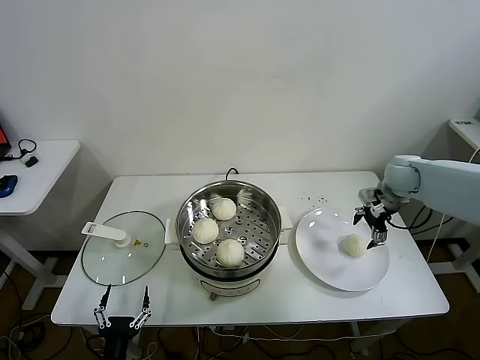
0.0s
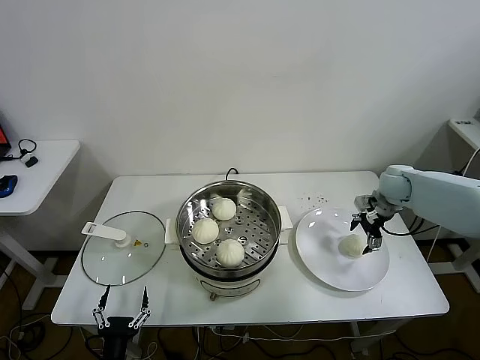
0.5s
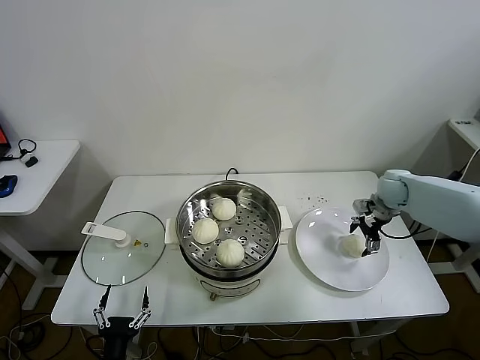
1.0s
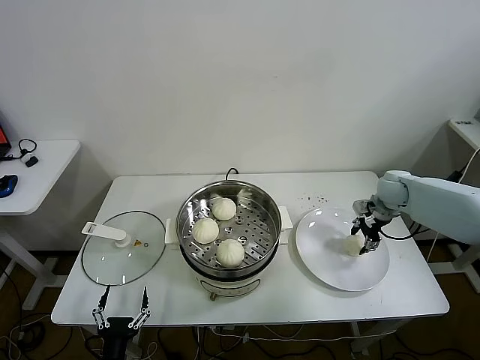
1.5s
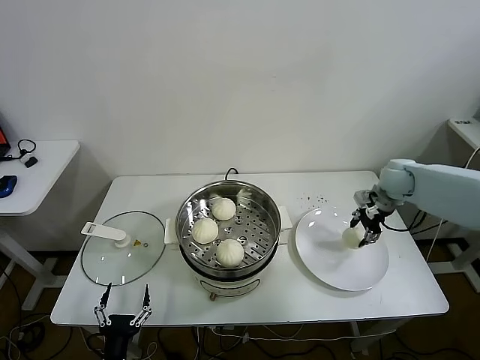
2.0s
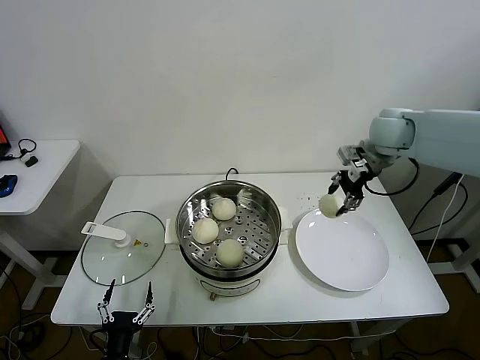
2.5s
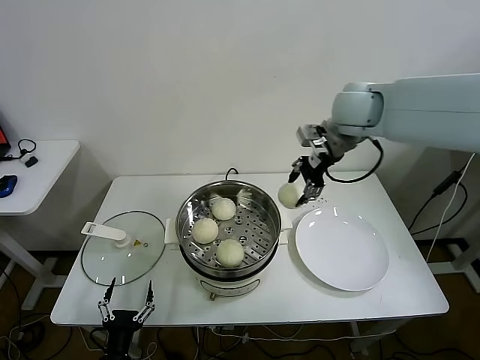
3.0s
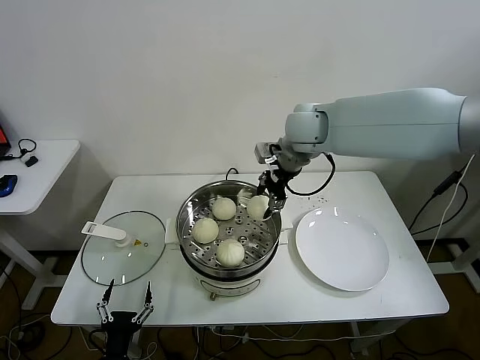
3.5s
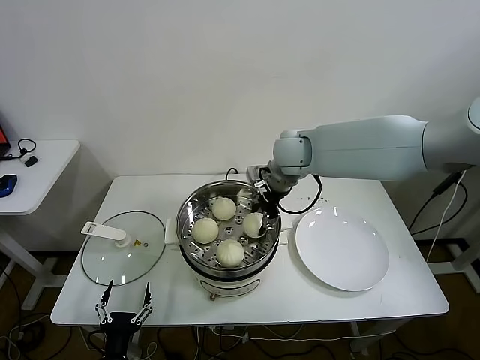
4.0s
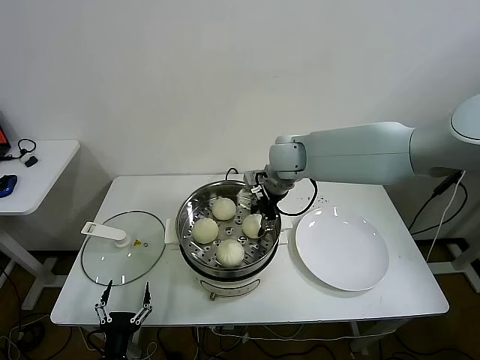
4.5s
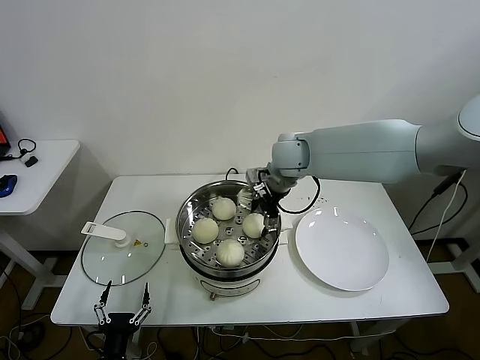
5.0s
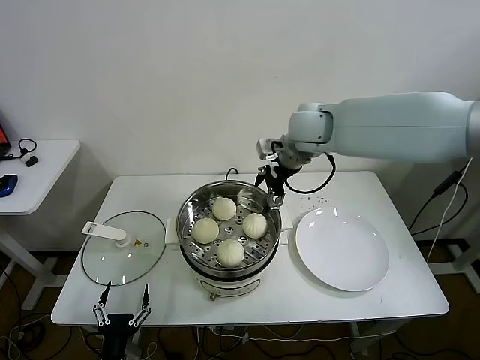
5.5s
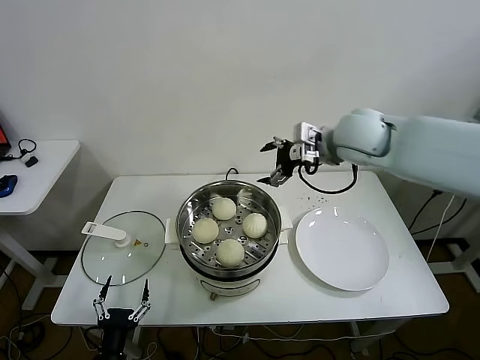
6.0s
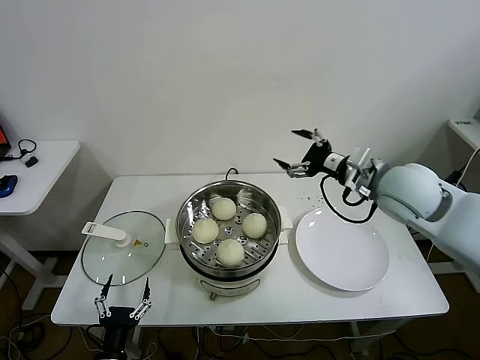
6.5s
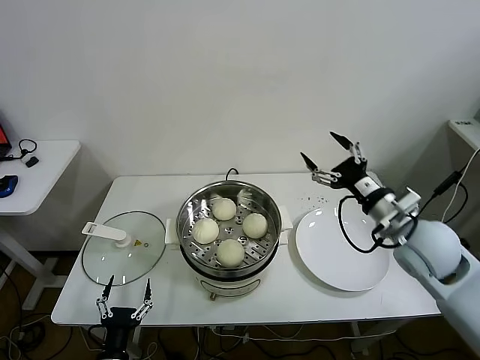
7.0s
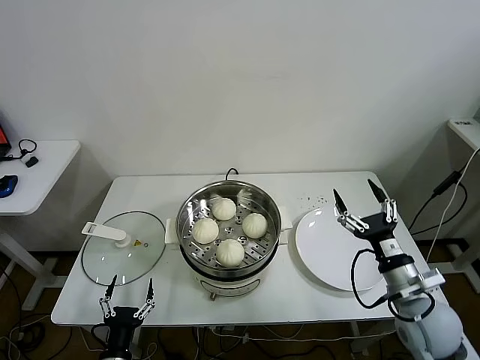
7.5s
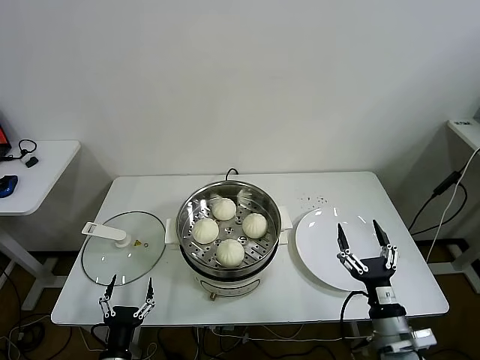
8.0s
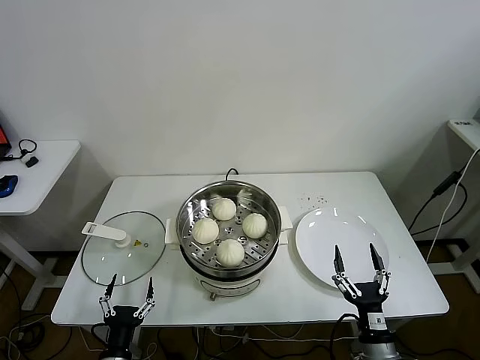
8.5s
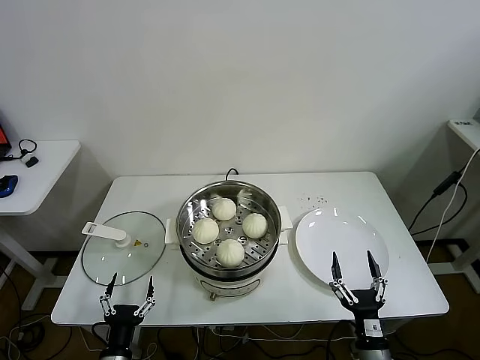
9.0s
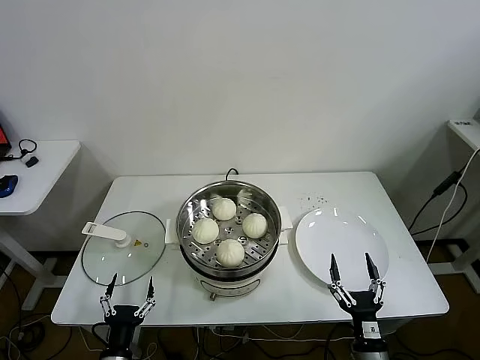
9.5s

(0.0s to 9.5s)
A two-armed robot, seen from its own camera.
Task of the whole recording: take steamed baozi put them in steamer.
Step, 2.0s - 5.0s: Place the baozi on the steamer with right gripper.
0.0s - 2.0s: The right gripper closes.
2.0s - 4.0s: The right gripper travels to the left by approximately 30 cm.
4.0s - 5.5s: The right gripper travels upward by approximately 5 cm, and opens up.
5.5s - 7.5s: The right gripper goes some 40 cm backward, downward and to the right.
7.5s - 9.5s: The right gripper heads downward, backward and to the left, covering roughly 20 cm.

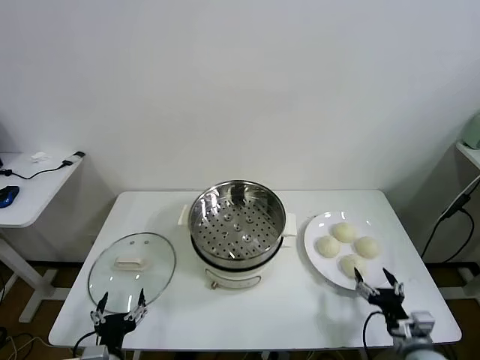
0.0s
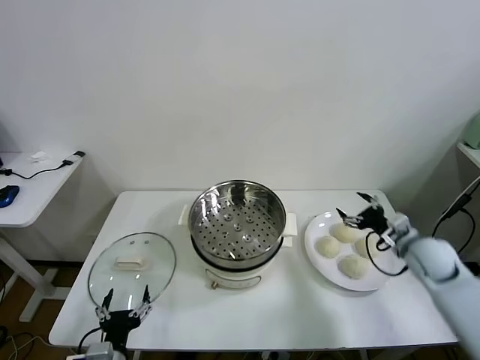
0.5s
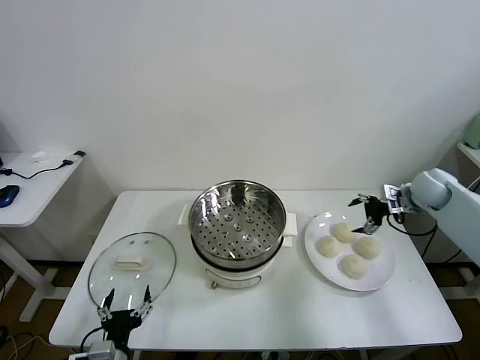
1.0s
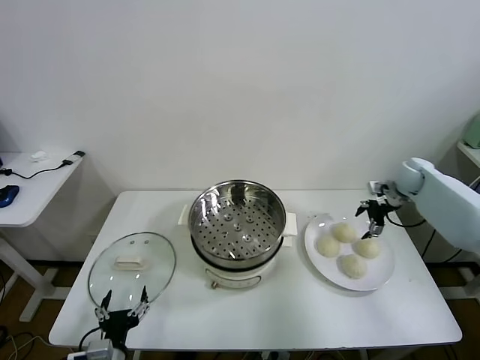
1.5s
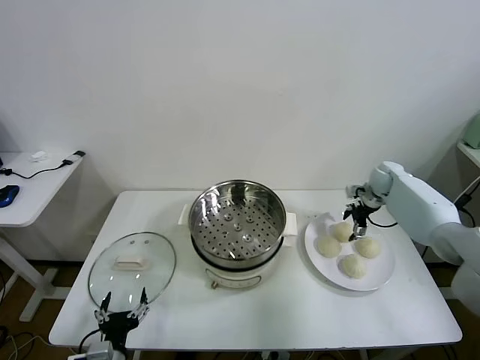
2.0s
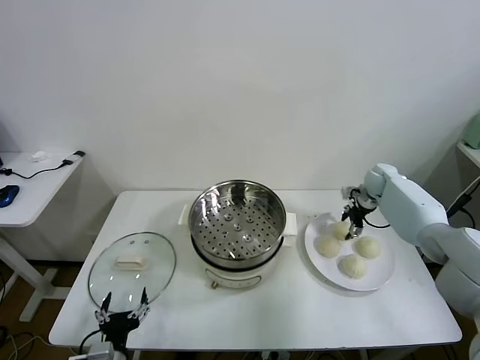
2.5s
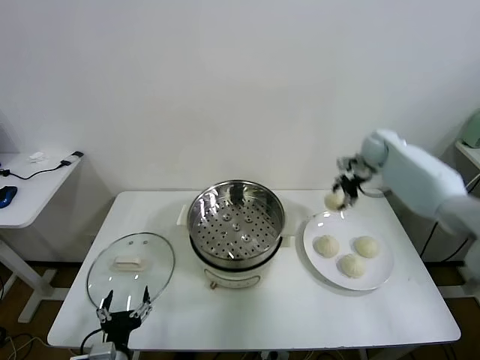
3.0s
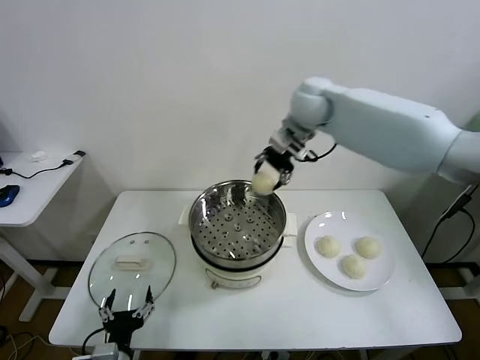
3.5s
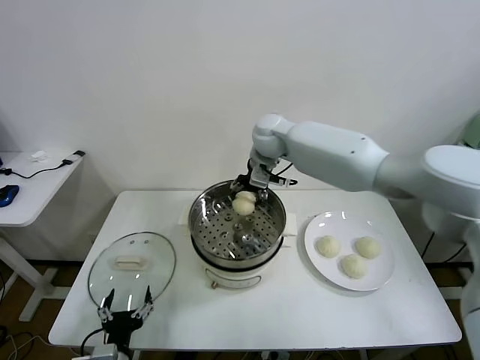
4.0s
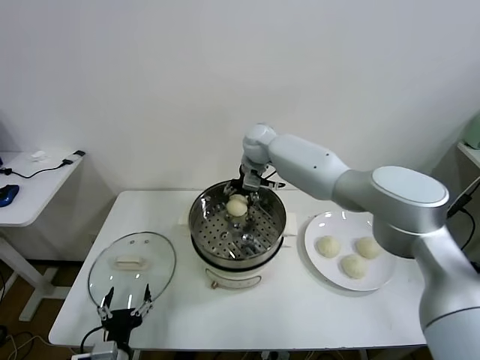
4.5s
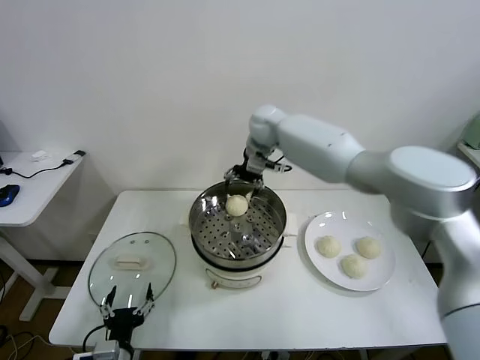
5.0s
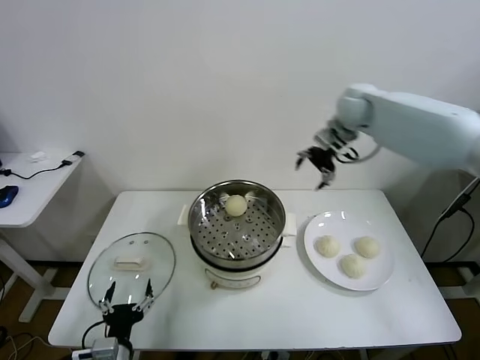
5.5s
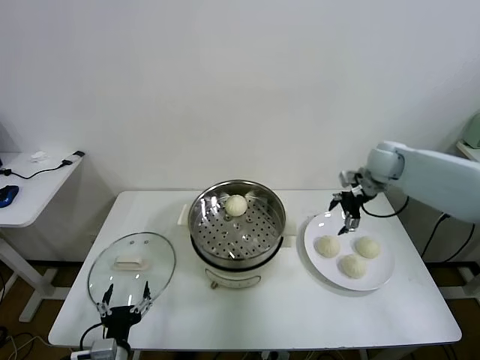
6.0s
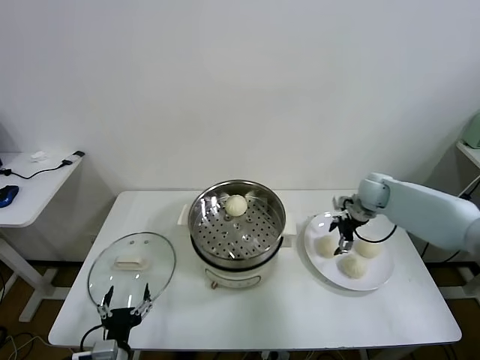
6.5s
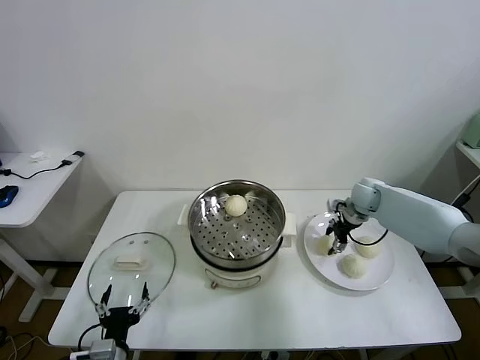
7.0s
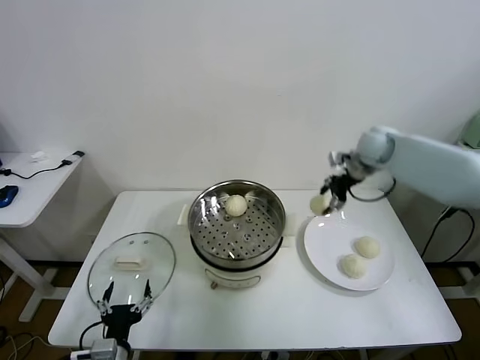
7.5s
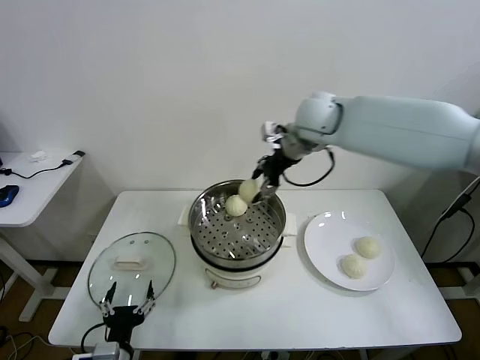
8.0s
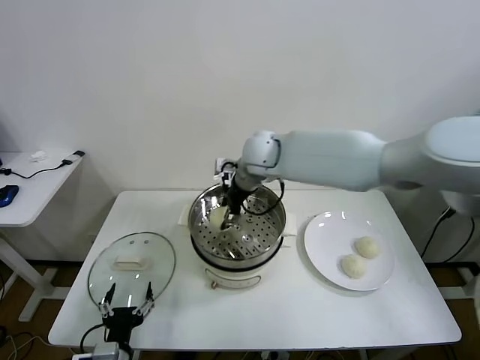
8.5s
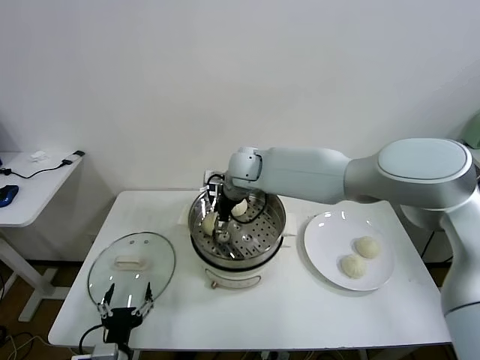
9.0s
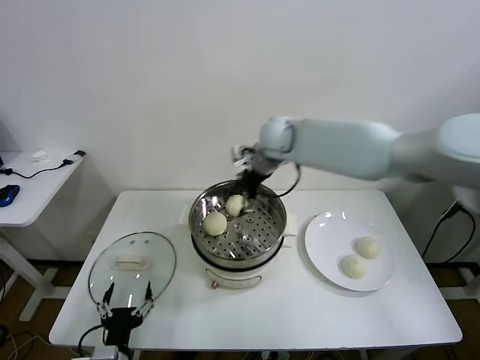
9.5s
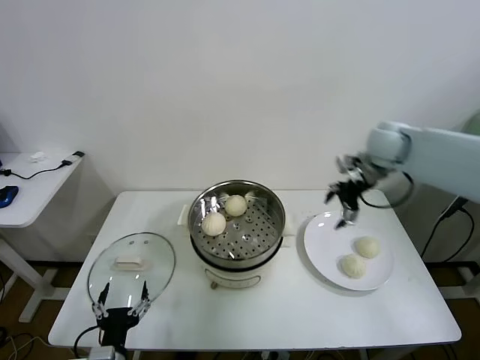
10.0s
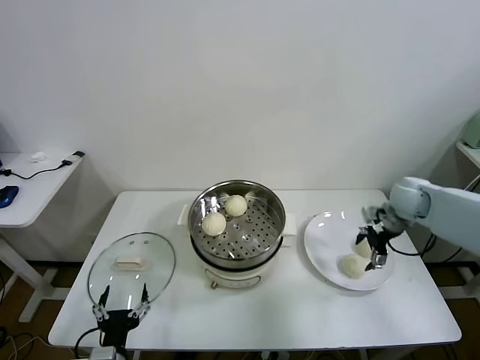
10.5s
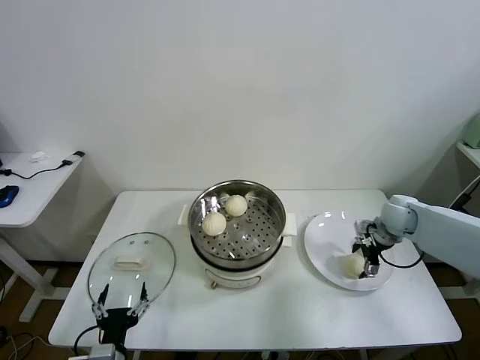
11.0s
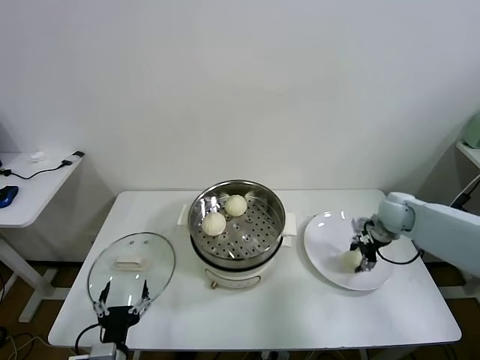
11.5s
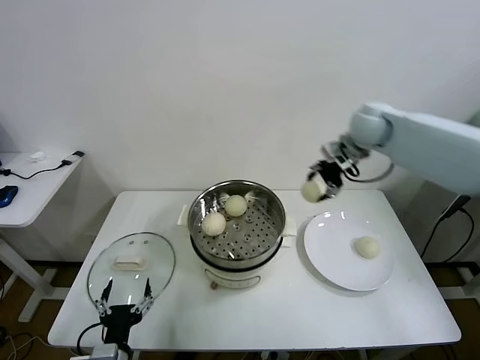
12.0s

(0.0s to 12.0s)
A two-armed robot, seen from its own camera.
Task of the whole recording: take steamed baozi put them in steamer.
Step, 0.0s - 2.5s: Grasp the baozi in the plate with right gripper.
Step, 3.0s - 4.5s: Place the baozi on the steamer with right gripper.
Step, 5.0s - 7.0s: Grasp the baozi in the plate with right gripper.
Step, 7.5s - 9.0s: Place the baozi on the steamer with right gripper.
Step, 9.5s - 11.0s: Grasp the baozi in the plate with right gripper.
2.0s - 4.0s: The right gripper goes approximately 40 cm to the left and upward, and closes its fingers.
4.0s - 6.0s: The right gripper is displaced to the right by roughly 30 cm, and opens its fingers.
6.0s - 8.0s: The right gripper travels to the left and upward by some 25 cm, and closes up.
8.0s - 10.0s: The right gripper heads to the right, covering roughly 20 cm, and opens.
10.0s - 12.0s: The right gripper moves to the left, approximately 5 cm, moves roughly 15 cm downward and comes back, and closes up.

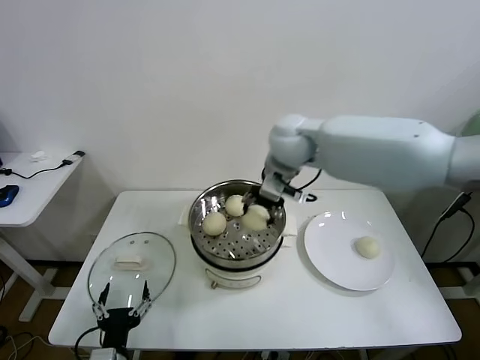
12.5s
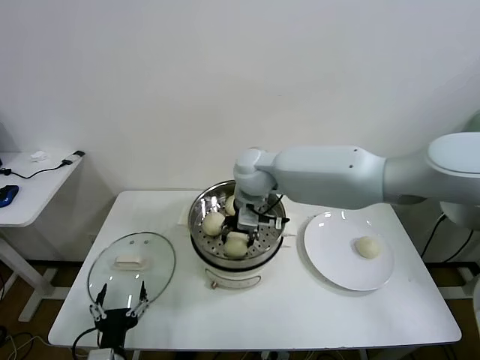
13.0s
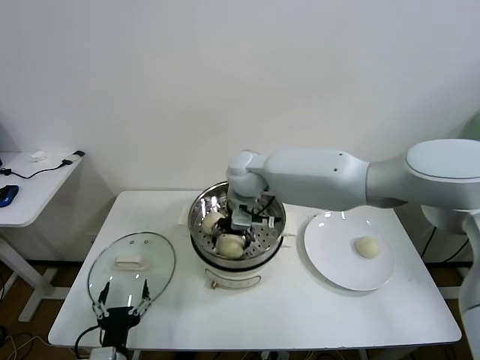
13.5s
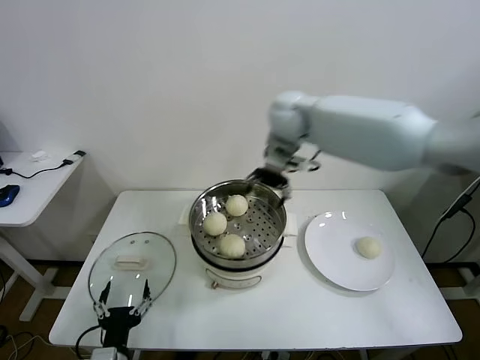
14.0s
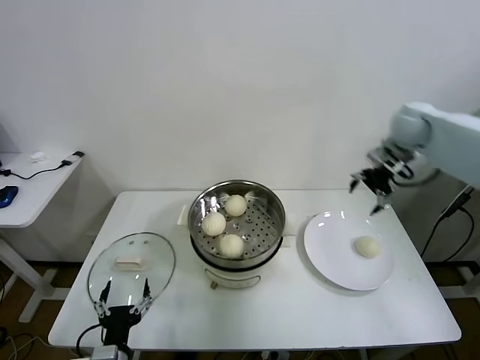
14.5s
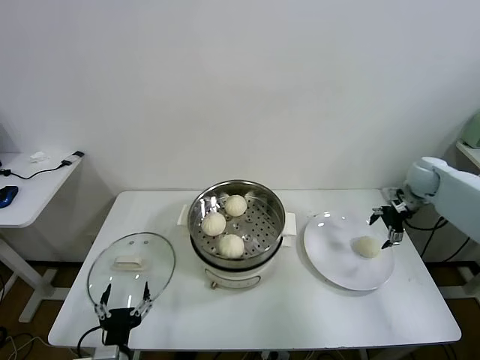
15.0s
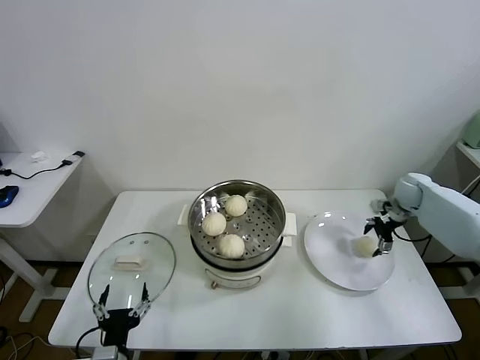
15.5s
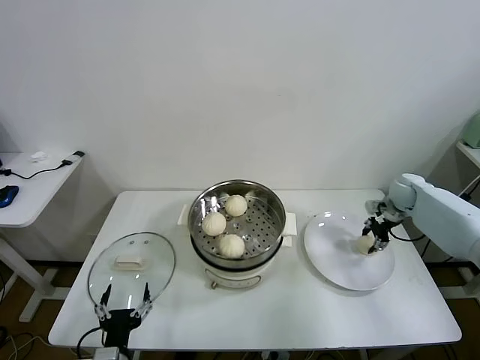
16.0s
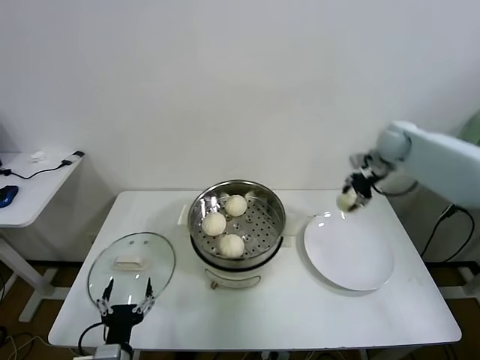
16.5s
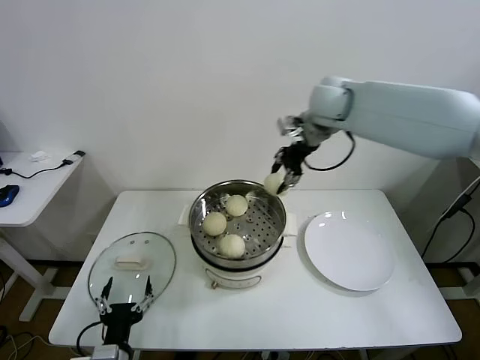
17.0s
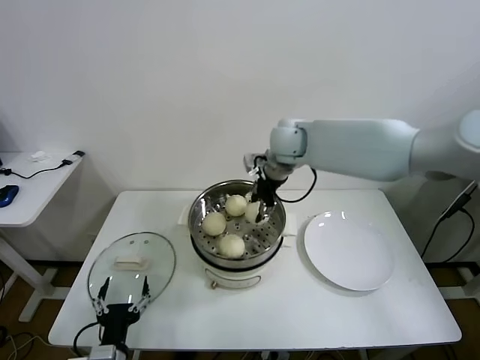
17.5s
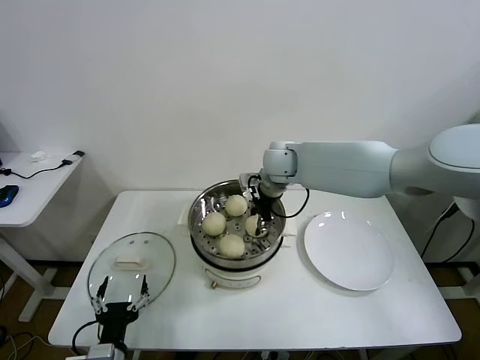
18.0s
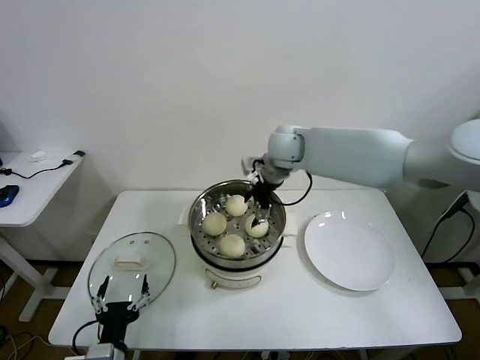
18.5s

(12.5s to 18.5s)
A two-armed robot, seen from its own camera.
Task of the whole recording: take steamed baozi put them in steamer.
Step, 14.0s - 15.5s: Grasp the baozi in the plate with right gripper.
Step, 16.0s - 18.5s: Place the baozi on the steamer with right gripper.
12.5s - 14.5s: The right gripper is displaced to the right by approximately 30 cm, and opens up.
14.5s - 16.5s: The right gripper moves roughly 20 cm downward and comes back, and closes up.
16.5s - 18.5s: The right gripper shifts roughly 25 cm to the left, and opens.
